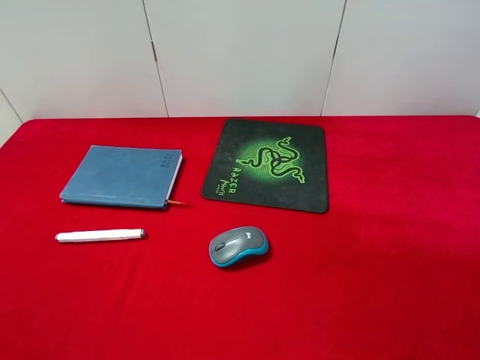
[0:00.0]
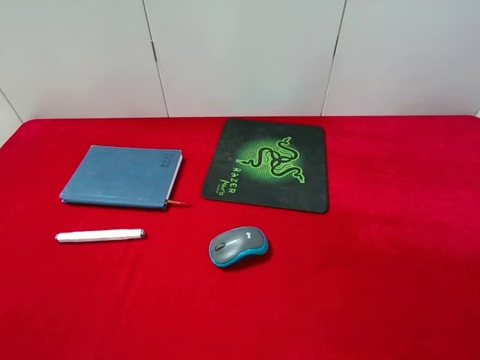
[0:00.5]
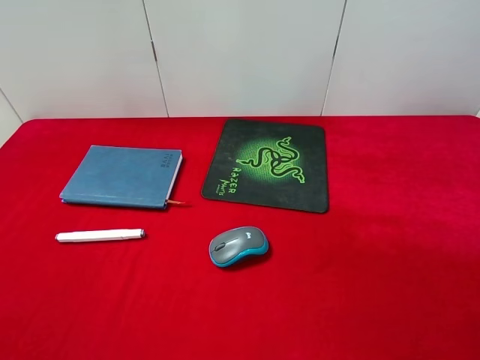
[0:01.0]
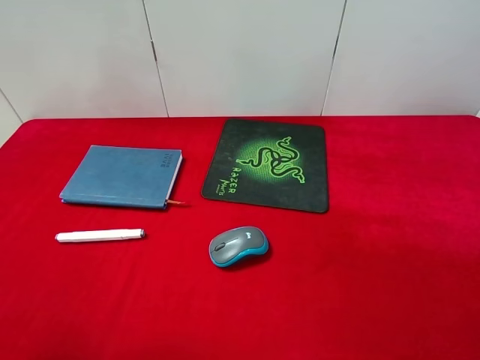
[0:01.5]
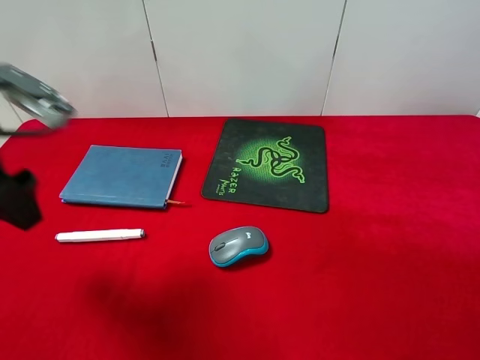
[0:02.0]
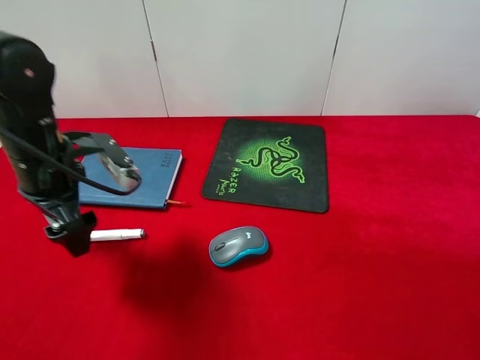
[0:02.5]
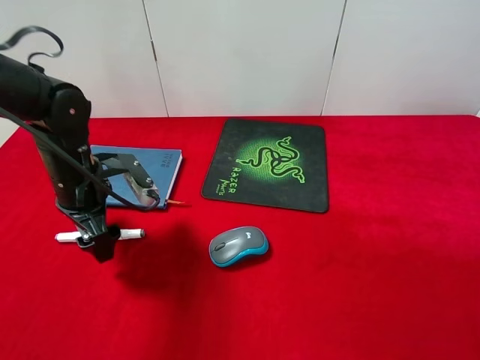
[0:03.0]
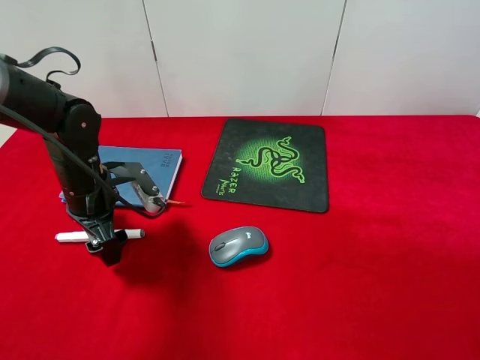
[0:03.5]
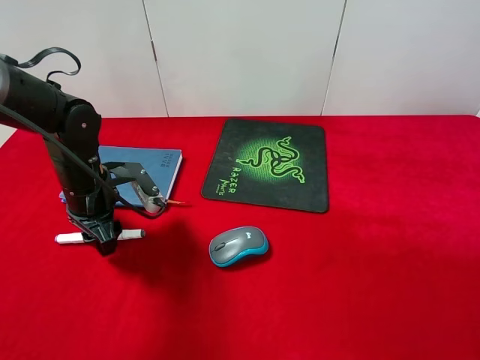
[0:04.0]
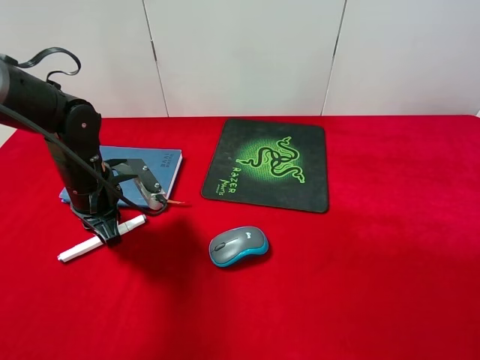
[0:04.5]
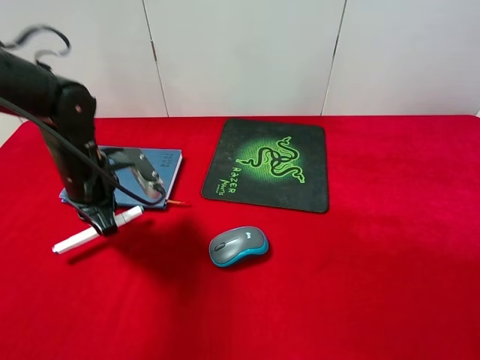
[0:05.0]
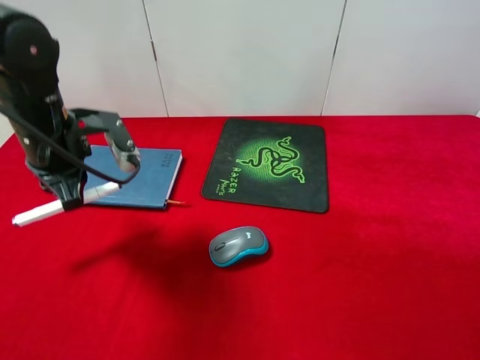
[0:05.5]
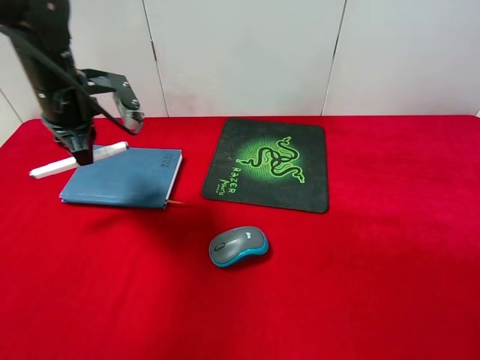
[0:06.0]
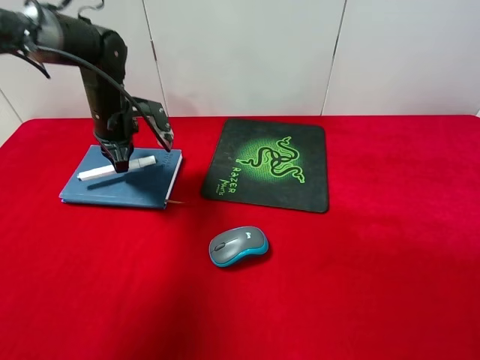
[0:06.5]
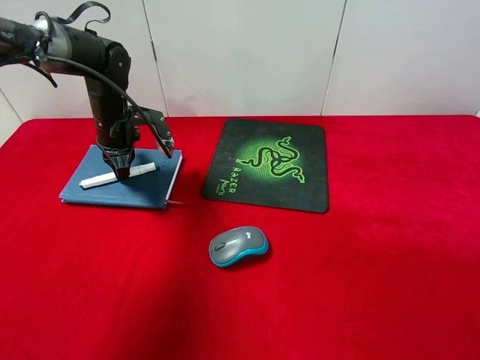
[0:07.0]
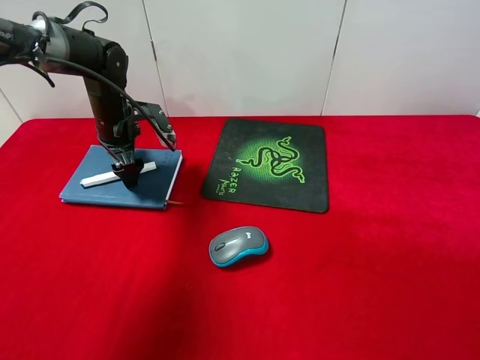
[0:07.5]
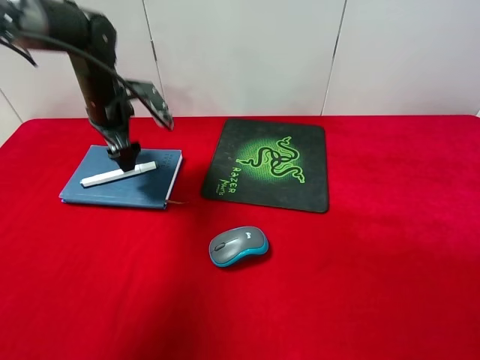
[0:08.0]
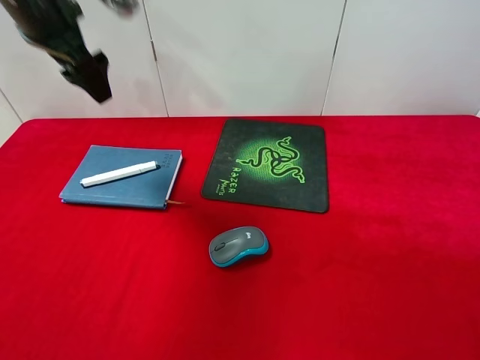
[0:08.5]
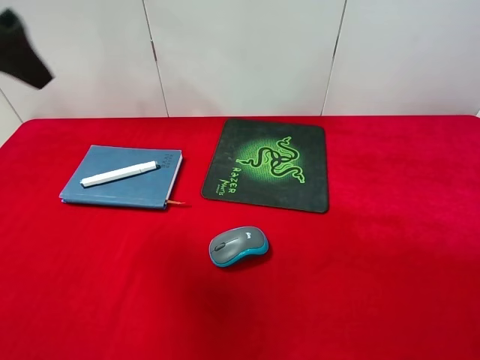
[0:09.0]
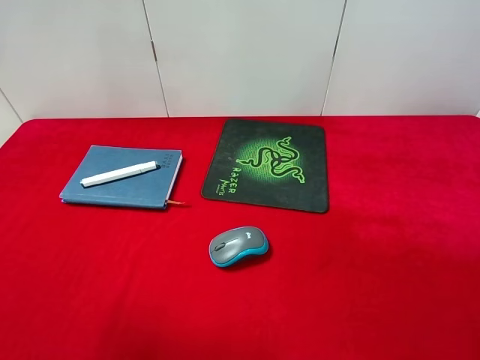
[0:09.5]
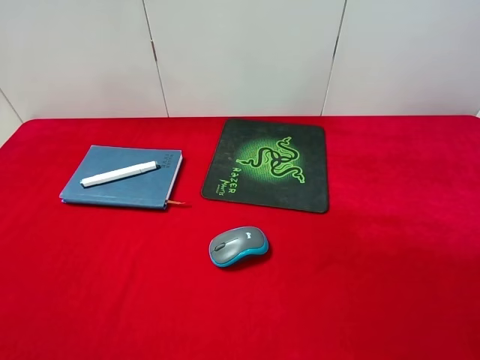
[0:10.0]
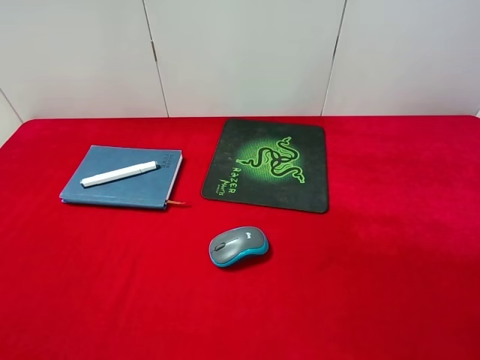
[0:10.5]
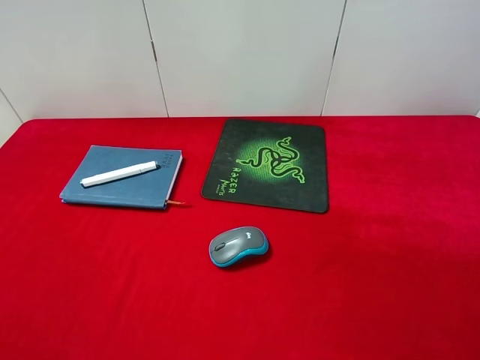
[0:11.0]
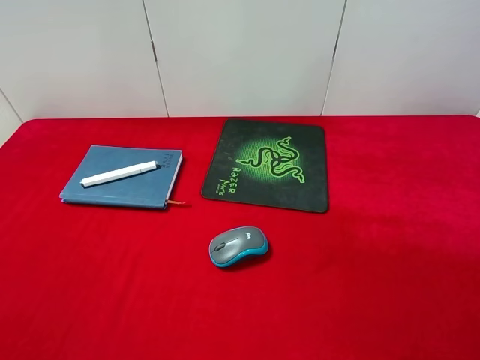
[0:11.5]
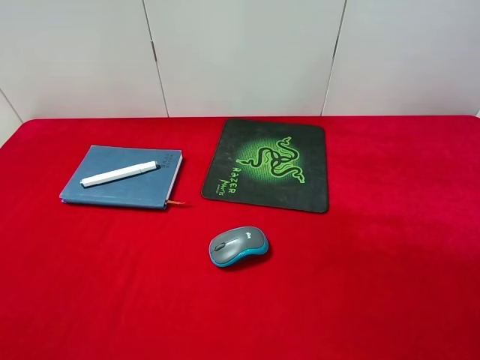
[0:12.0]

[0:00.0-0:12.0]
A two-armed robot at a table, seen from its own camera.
Step, 0:00.0 to 0:05.0: Pick up the marker pen with left gripper.
Step, 0:05.5 to 0:08.0: Place the marker pen on the notebook with left gripper.
0:00.0 to 0:02.0: The left gripper goes roughly 20 cm forward.
0:02.0 to 0:04.0: The left gripper is displaced downward and forward by about 20 cm, and closes its fingers.
0:04.0 to 0:06.0: The left gripper travels upward and forward by roughly 15 cm, and closes up.
0:06.0 to 0:08.0: The left gripper heads forward, covering approximately 5 cm, and opens.
0:08.0 to 0:10.0: The left gripper shifts roughly 40 cm backward and upward.

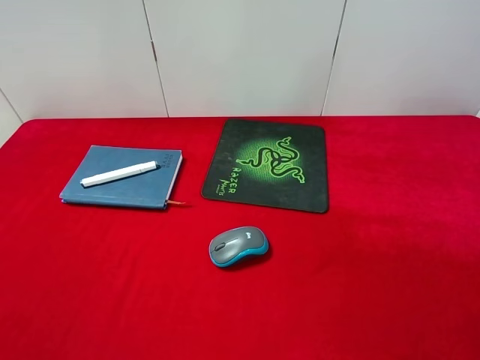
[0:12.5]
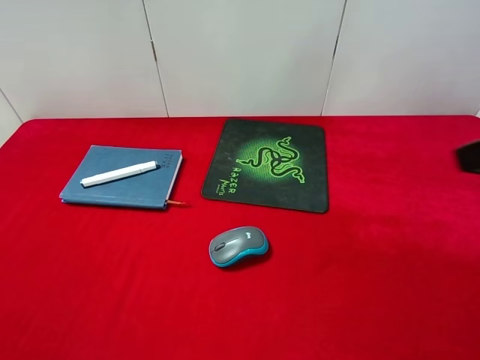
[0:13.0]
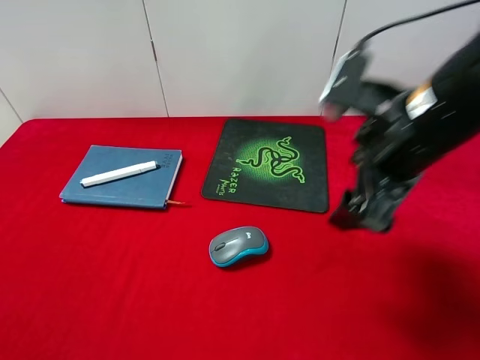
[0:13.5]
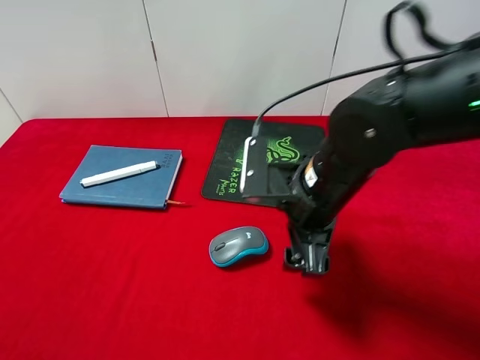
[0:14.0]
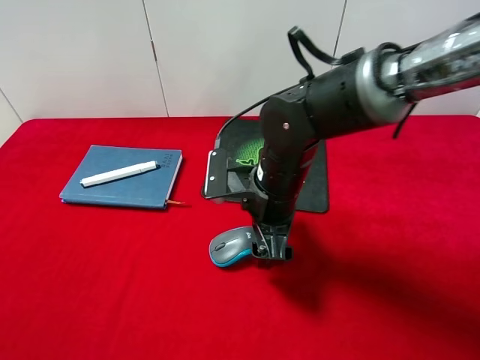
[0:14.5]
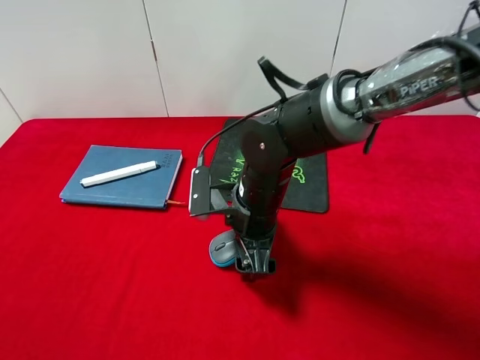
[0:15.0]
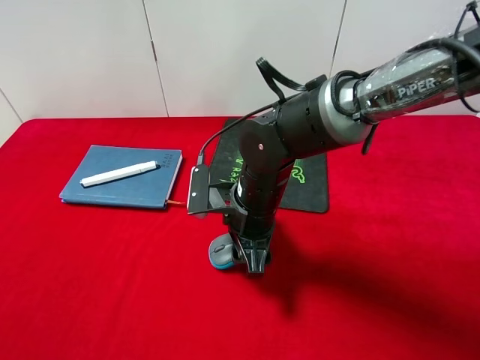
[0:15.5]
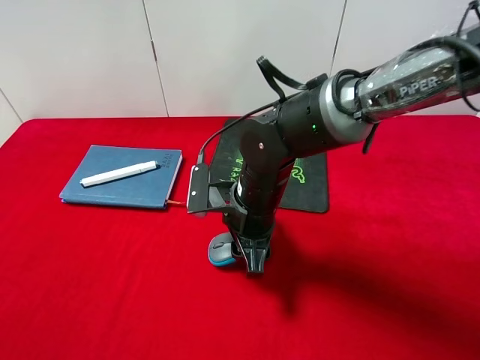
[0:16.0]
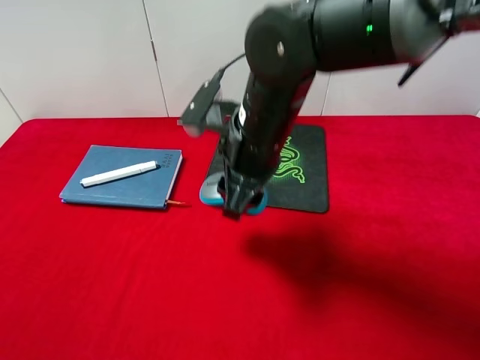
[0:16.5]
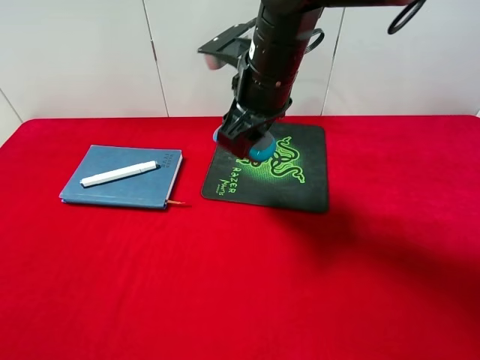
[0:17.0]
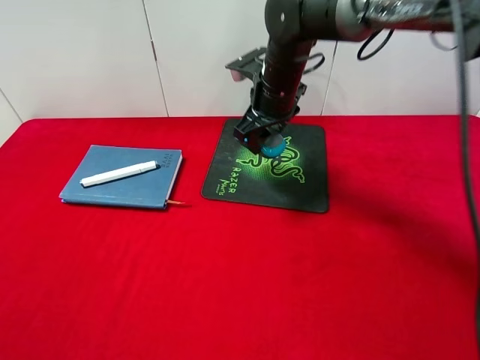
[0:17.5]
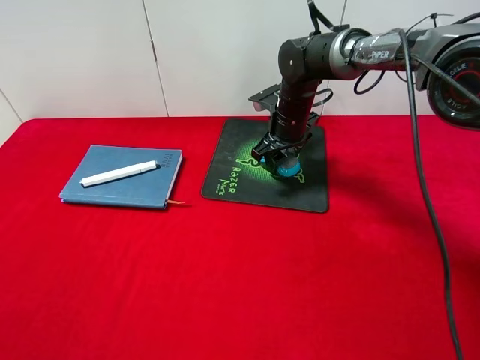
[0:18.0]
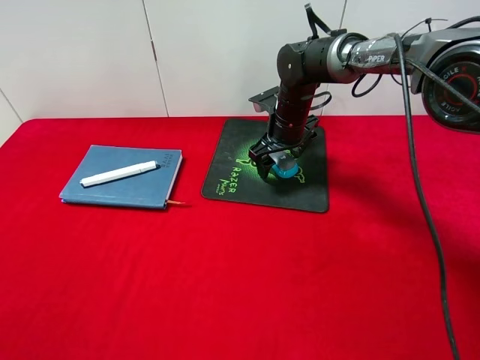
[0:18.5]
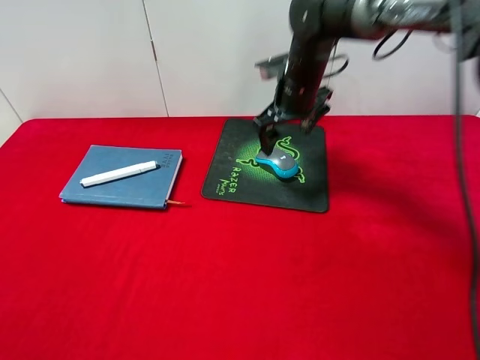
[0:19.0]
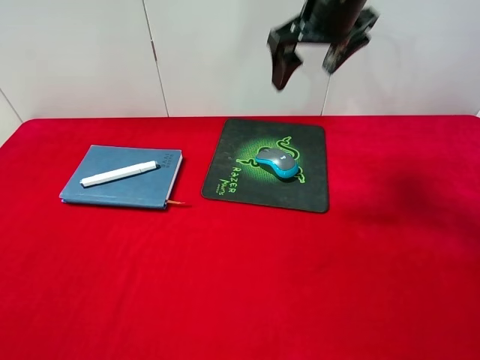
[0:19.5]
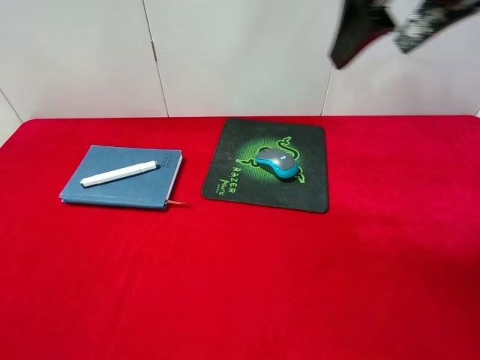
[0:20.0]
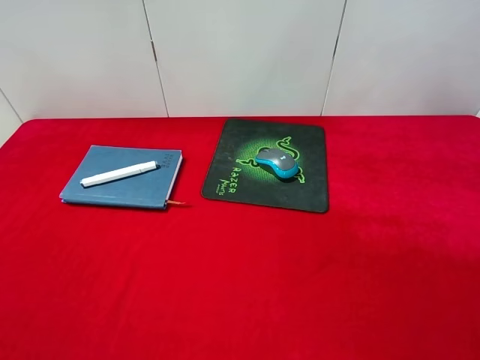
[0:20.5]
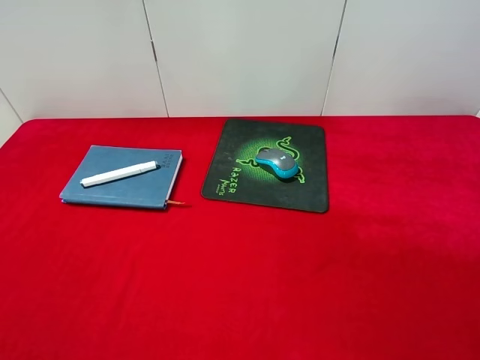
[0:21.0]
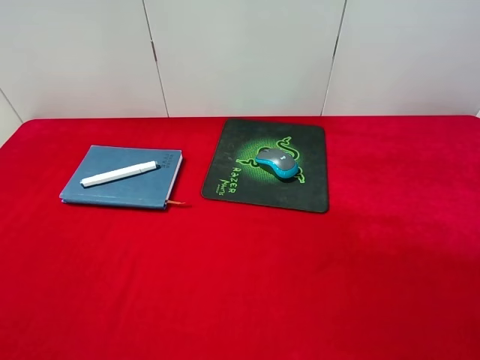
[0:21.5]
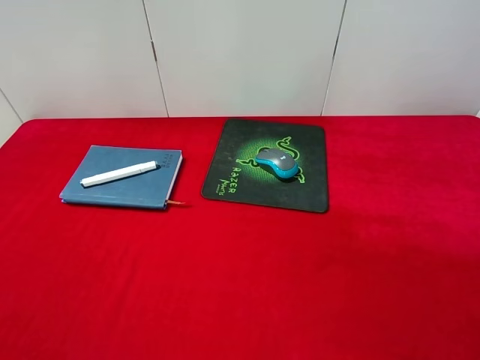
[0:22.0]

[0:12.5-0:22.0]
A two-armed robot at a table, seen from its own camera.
Step, 0:12.5 to 0:16.0: Pick up the mouse with right gripper.
Step, 0:16.5 to 0:19.0: Place the mouse on the mouse pad with right gripper.
0:12.5 to 0:14.5: The right gripper shifts some 40 cm to the left, forward and downward.
0:14.5 to 0:16.5: The right gripper heads upward, covering about 10 cm, and closes.
0:16.5 to 0:18.0: The right gripper heads forward and downward, covering some 20 cm.
0:18.0 to 0:20.0: The right gripper shifts roughly 35 cm upward and backward, and opens.
0:20.0 to 0:22.0: The right gripper heads backward, downward and to the right, covering some 30 cm.
